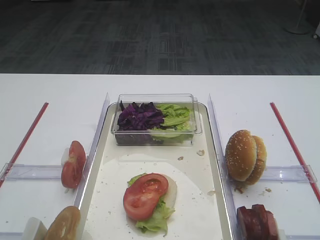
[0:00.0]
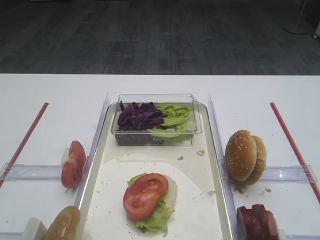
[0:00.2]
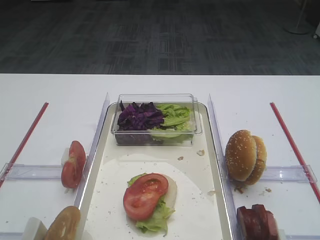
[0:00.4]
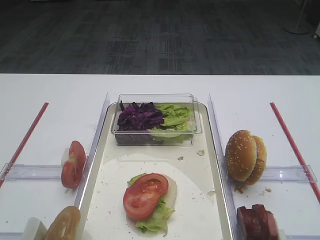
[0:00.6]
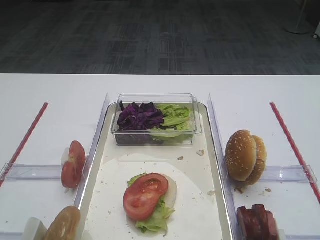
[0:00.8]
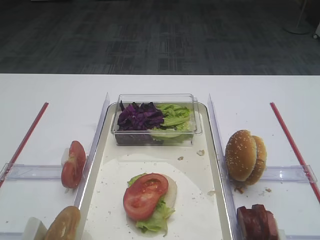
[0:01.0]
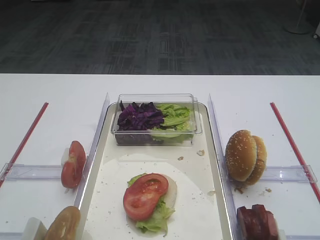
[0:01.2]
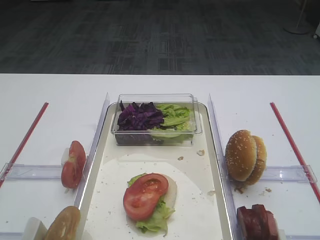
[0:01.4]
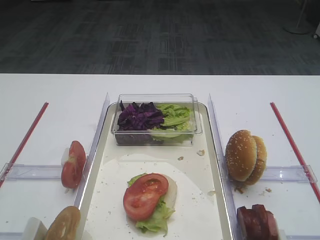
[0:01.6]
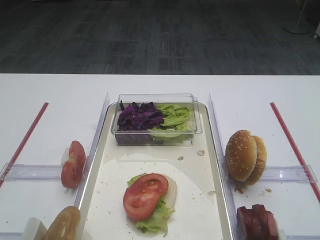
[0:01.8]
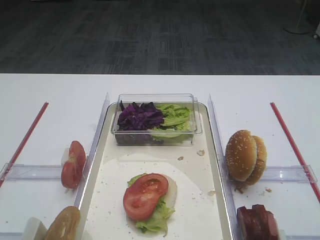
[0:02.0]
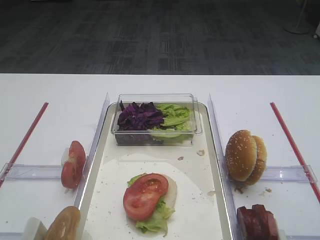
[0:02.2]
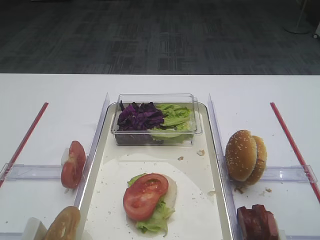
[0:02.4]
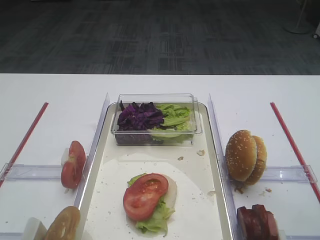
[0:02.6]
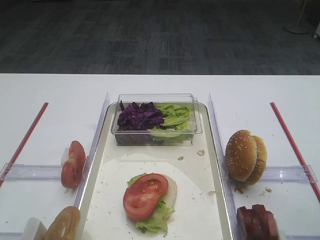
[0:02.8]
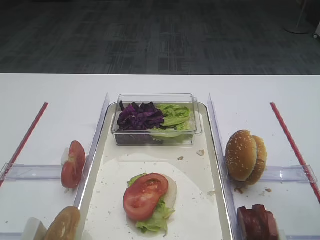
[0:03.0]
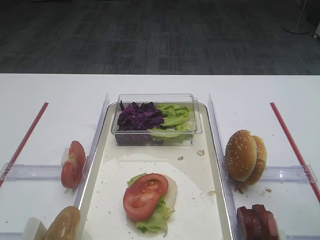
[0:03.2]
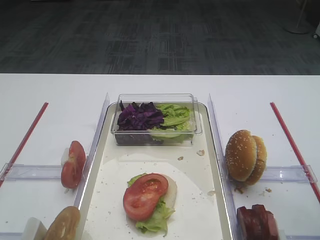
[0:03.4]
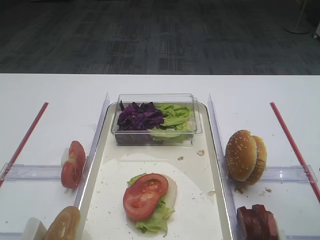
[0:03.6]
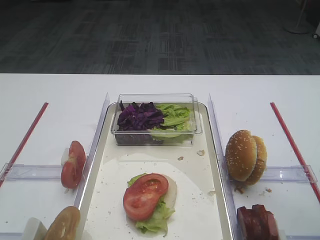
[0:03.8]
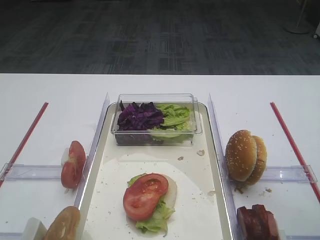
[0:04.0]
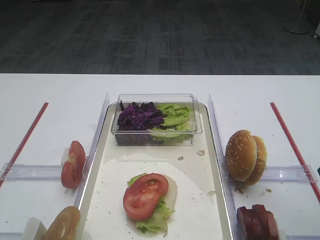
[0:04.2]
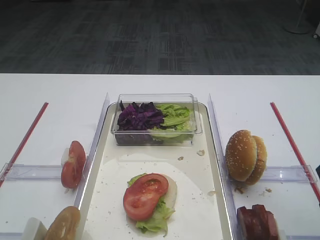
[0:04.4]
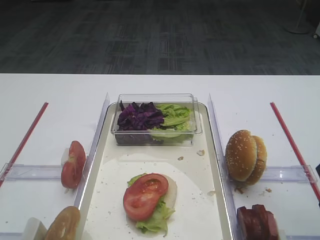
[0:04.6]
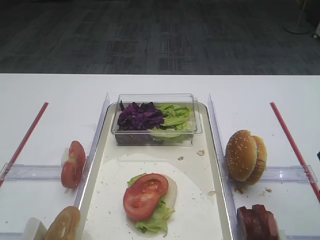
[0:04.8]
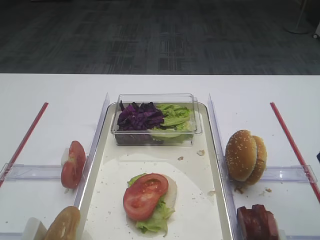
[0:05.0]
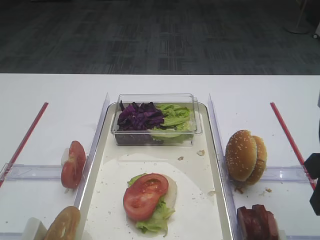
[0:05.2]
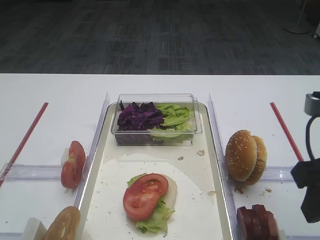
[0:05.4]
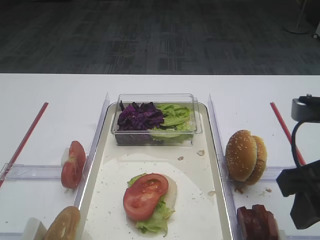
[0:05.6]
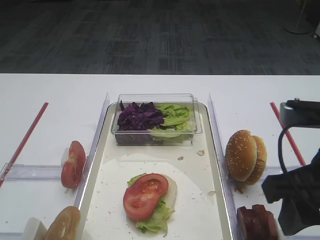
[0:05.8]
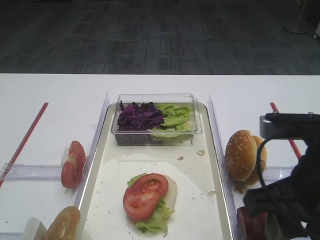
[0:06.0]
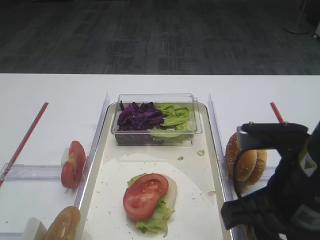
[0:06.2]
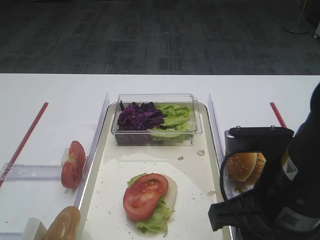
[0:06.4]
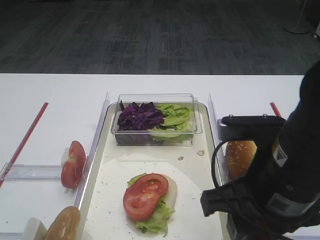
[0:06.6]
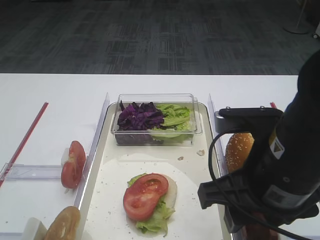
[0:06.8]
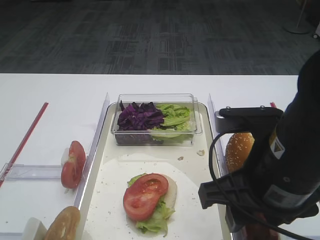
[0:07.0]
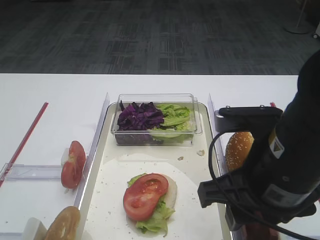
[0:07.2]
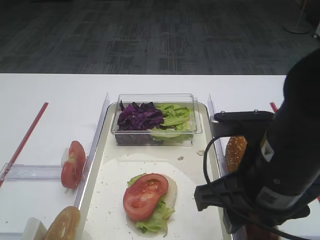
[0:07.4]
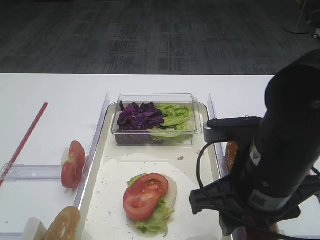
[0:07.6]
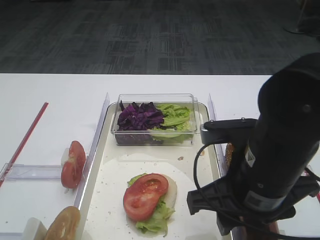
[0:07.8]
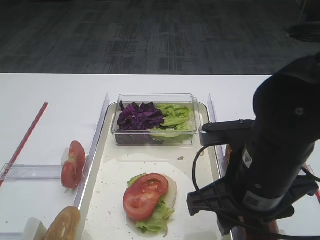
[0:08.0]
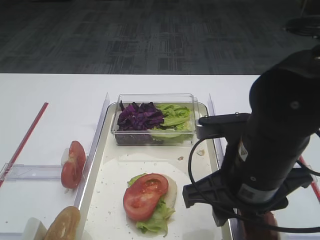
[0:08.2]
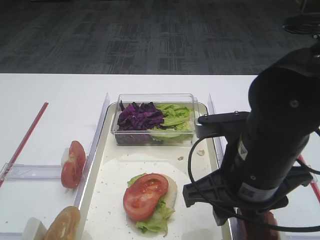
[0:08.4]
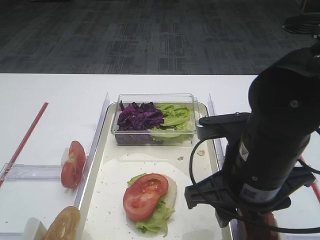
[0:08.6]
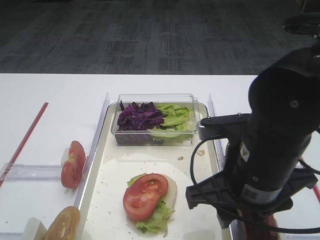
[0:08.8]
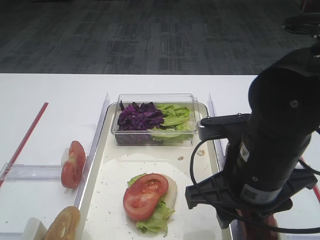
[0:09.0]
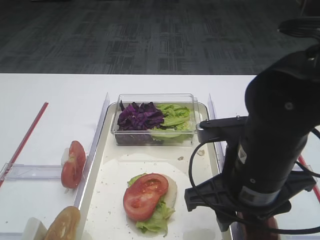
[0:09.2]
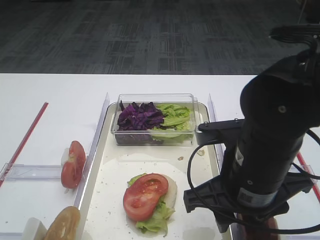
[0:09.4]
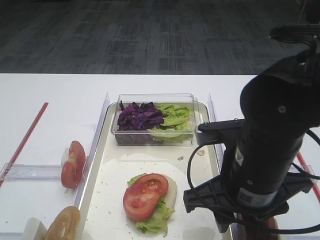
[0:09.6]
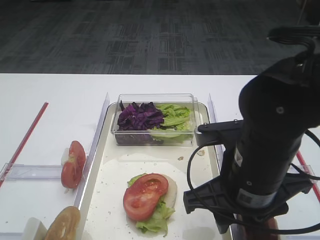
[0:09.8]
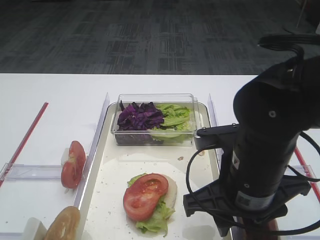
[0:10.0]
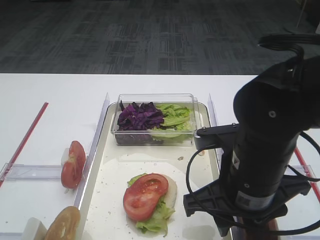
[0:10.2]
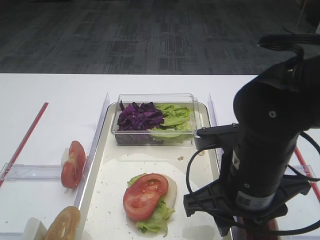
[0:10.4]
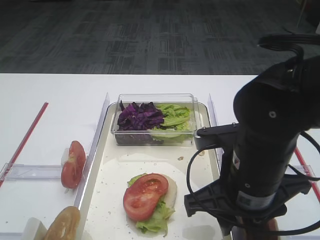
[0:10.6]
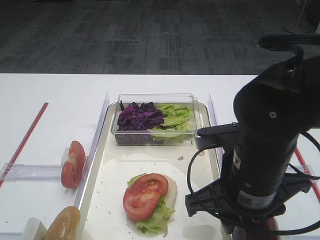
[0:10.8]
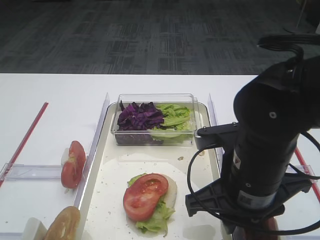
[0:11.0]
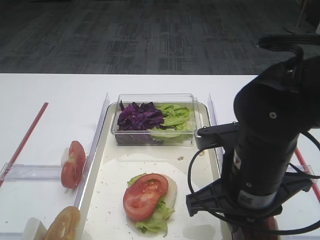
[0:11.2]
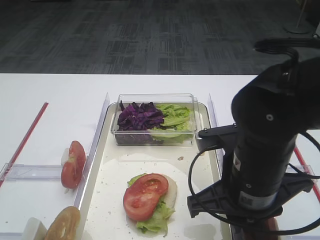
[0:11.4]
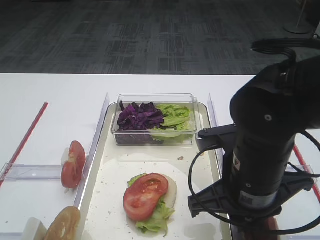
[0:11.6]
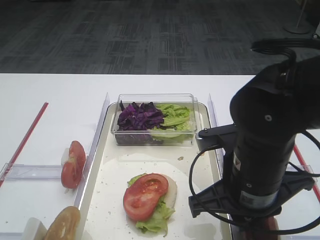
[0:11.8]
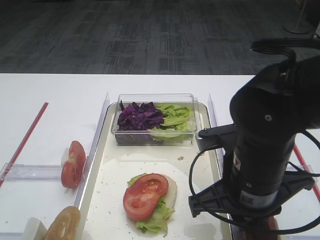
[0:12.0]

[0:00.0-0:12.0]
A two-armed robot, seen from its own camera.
0:01.6 to 0:03.0: The right gripper travels forward by approximately 15 cm.
0:04.4 to 0:06.0: The right gripper goes roughly 10 cm to the left.
0:06.0 to 0:07.6: The right gripper travels to the left by roughly 5 cm.
0:07.6 to 0:10.4: The grippers make only small movements.
0:10.4 to 0:12.0: The right gripper closes up.

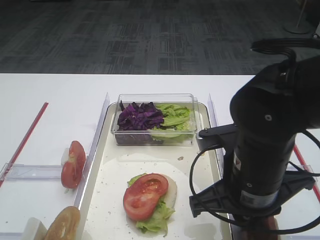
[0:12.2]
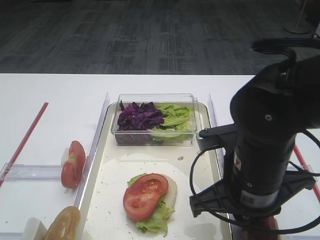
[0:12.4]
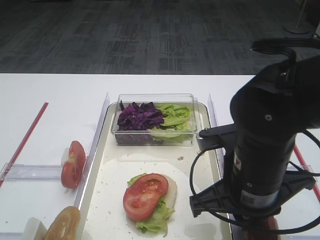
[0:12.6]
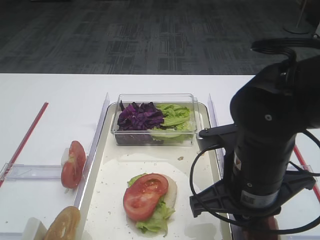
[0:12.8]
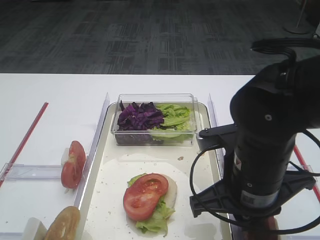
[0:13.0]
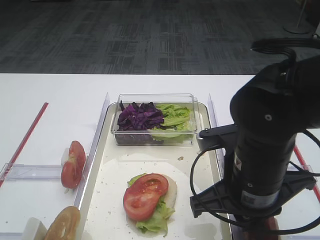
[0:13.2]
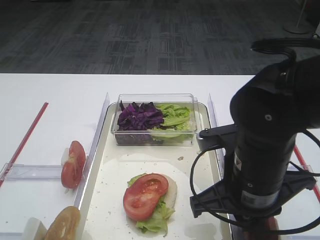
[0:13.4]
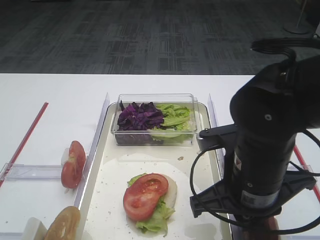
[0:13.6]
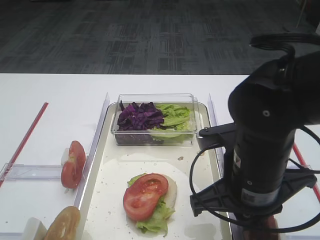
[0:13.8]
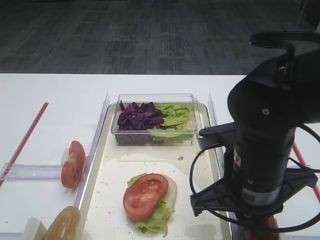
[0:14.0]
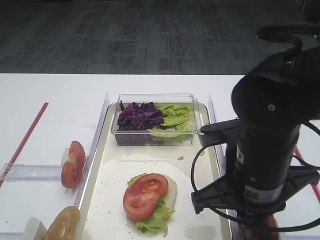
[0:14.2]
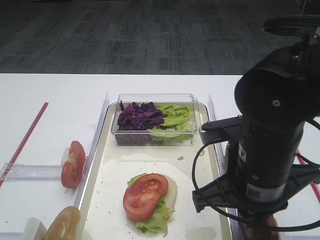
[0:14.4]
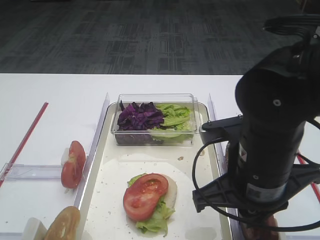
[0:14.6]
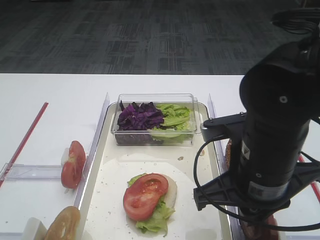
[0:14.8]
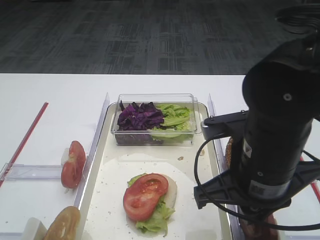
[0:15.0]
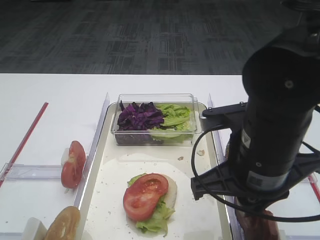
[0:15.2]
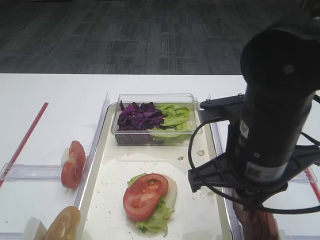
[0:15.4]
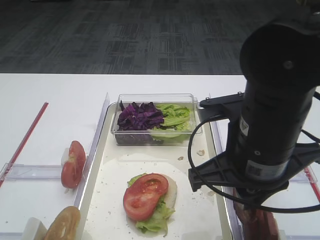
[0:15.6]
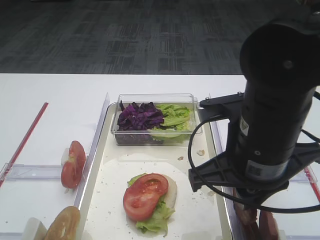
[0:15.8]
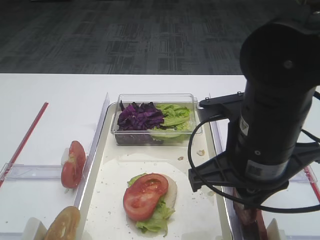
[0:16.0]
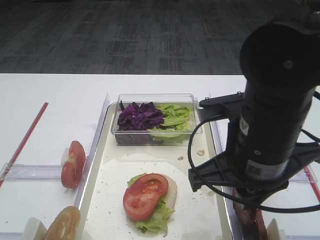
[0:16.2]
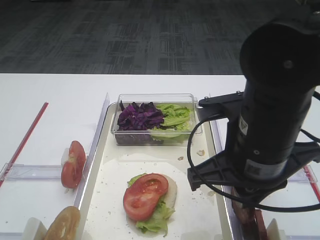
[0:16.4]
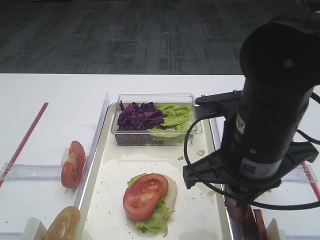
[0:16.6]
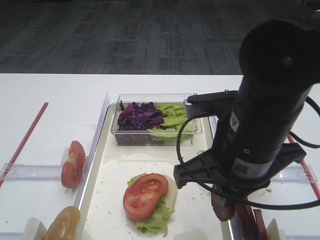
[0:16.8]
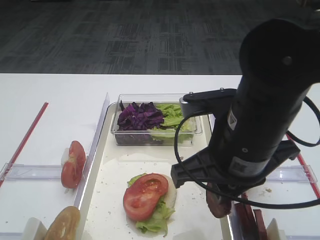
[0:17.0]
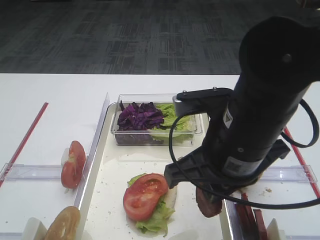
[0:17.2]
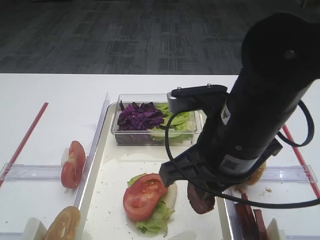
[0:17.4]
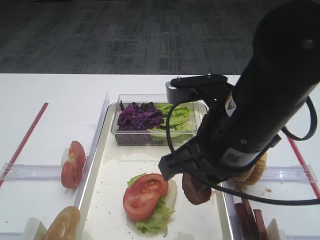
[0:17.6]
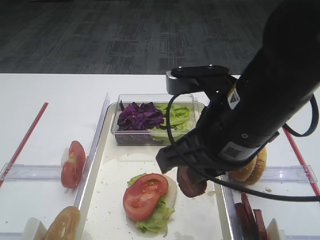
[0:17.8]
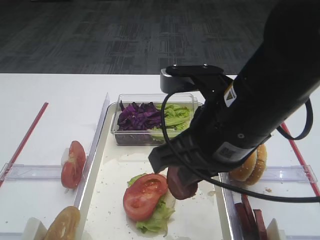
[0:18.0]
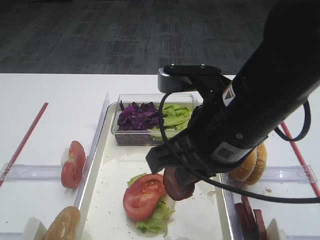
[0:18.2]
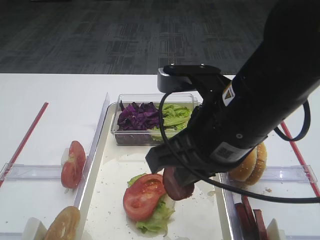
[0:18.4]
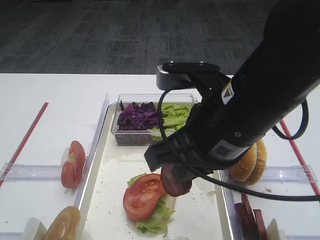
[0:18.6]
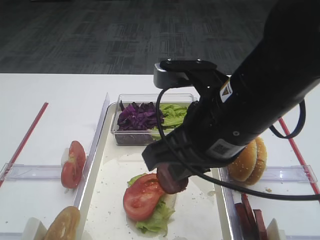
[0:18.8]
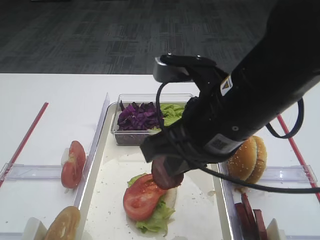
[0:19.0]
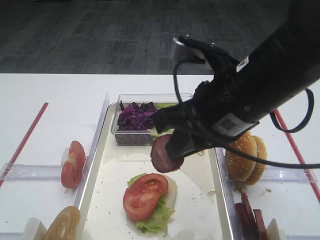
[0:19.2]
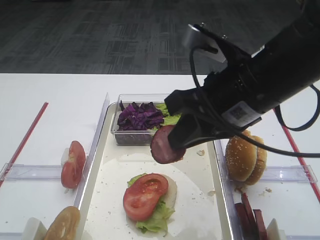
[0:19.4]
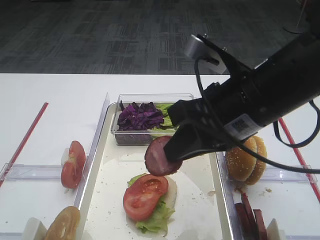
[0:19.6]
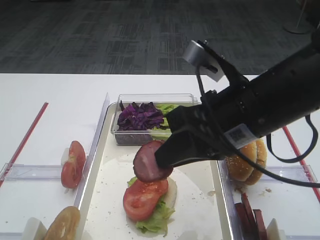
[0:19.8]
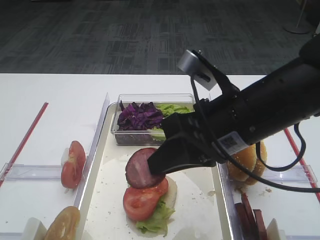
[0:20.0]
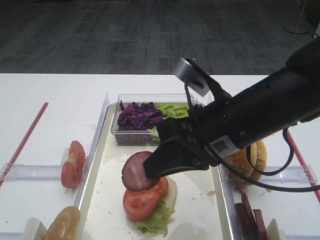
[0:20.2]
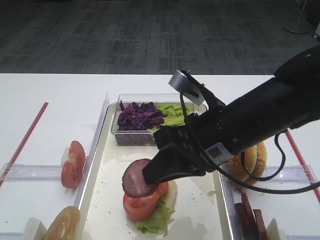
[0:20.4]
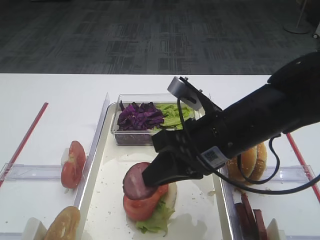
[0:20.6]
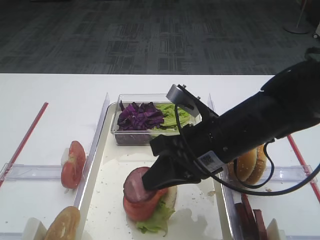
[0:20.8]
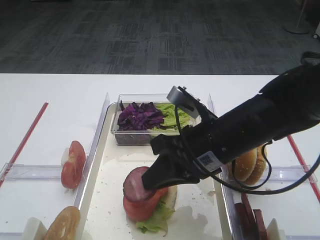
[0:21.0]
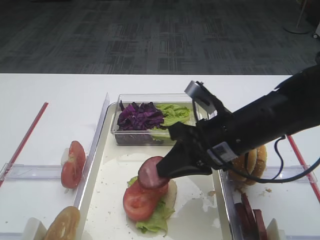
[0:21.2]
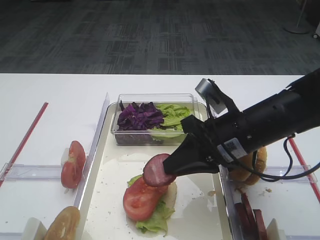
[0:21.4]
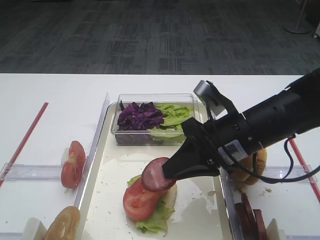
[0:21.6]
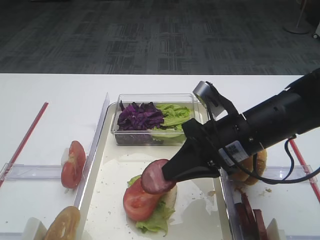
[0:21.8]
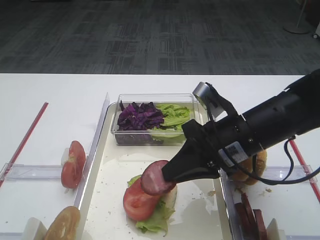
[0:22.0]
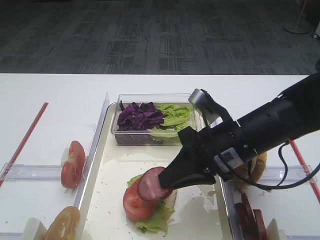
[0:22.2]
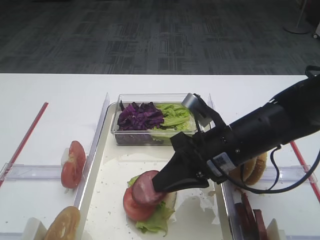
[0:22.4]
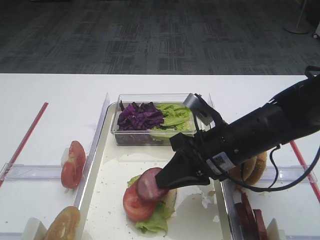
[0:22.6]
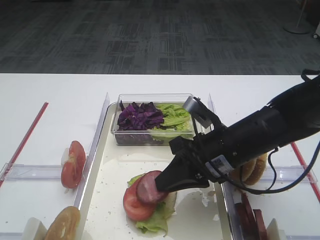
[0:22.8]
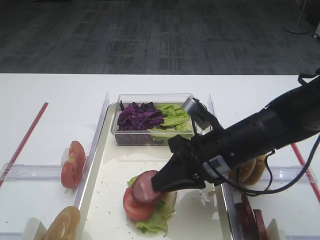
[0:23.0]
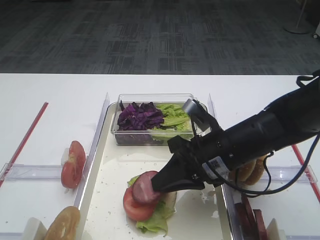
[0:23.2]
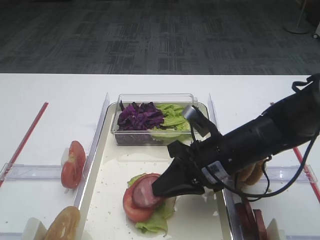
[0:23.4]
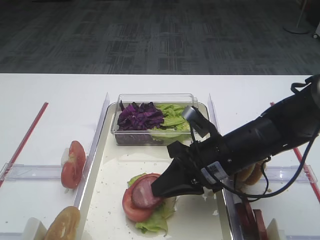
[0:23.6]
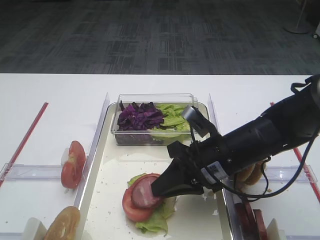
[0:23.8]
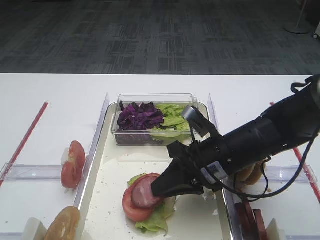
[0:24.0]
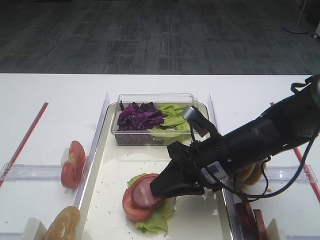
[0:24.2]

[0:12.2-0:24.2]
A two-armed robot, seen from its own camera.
Step, 0:12.2 to 0:14.8: Pick up the cutlet with the right gripper.
0:12.2 to 0:13.8: Neither gripper changes place.
0:13.8 to 0:16.6: The grippers stay close to where they were, moving slightly.
0:19.8 to 0:21.2: The right gripper moves downward, some 10 cm.
0:21.2 to 0:24.2: The grippers make only small movements.
